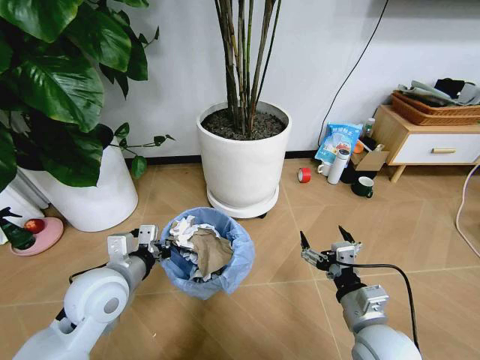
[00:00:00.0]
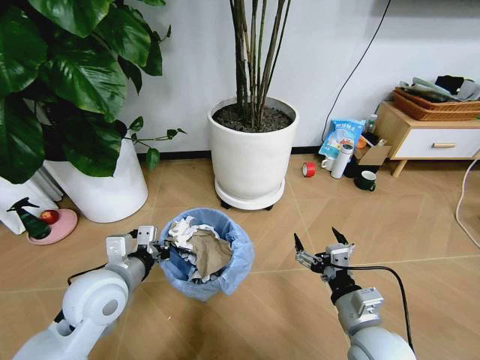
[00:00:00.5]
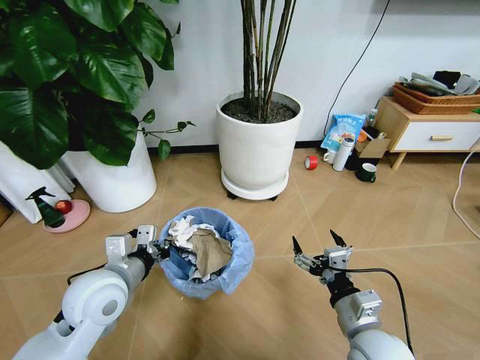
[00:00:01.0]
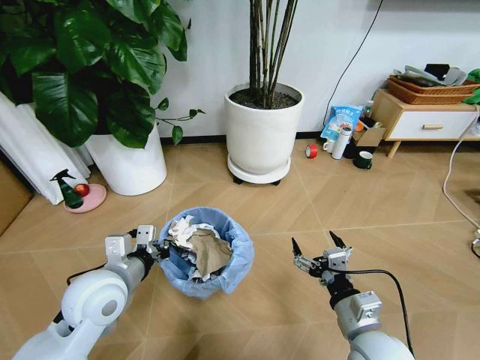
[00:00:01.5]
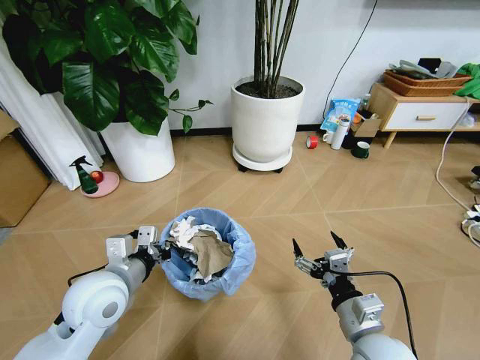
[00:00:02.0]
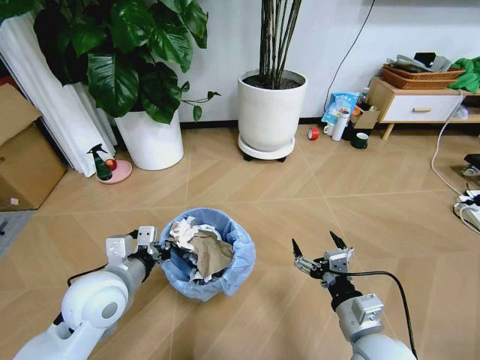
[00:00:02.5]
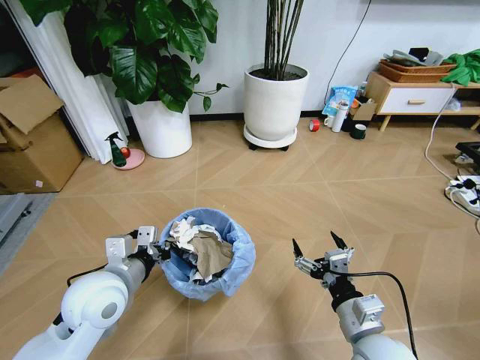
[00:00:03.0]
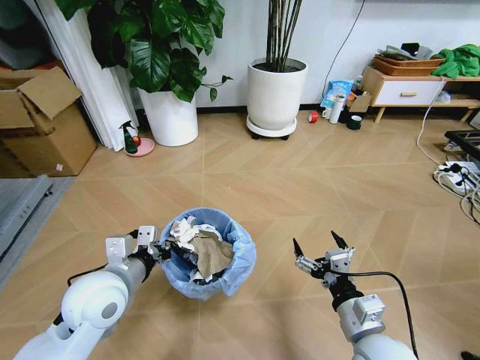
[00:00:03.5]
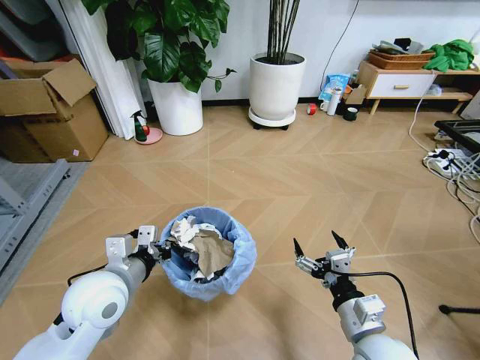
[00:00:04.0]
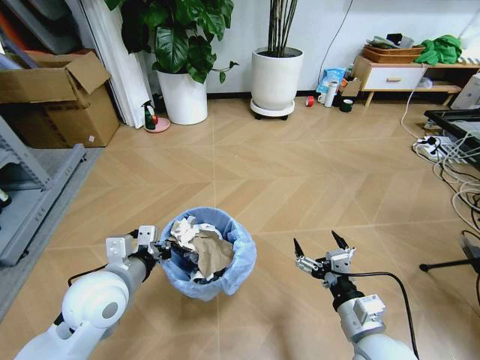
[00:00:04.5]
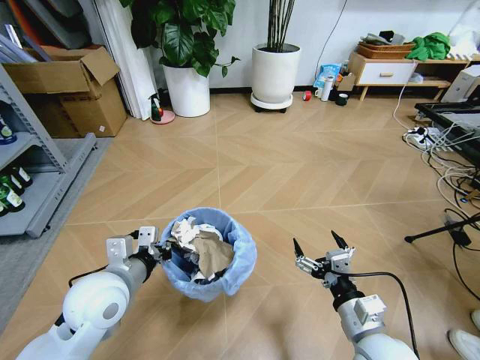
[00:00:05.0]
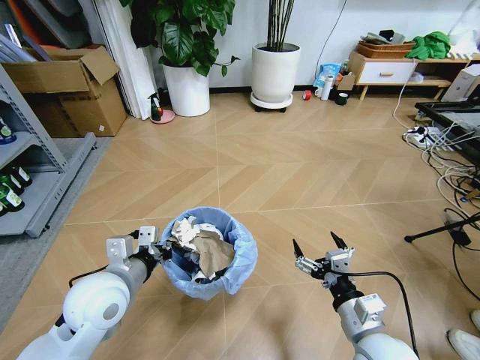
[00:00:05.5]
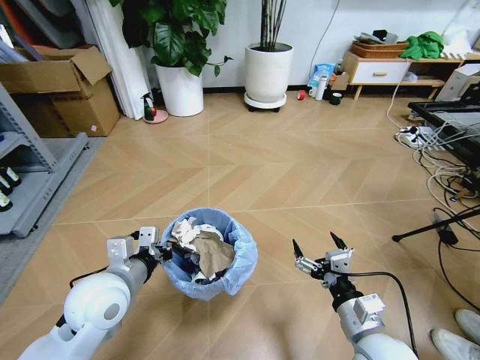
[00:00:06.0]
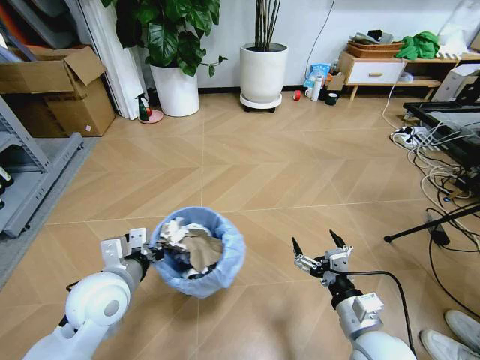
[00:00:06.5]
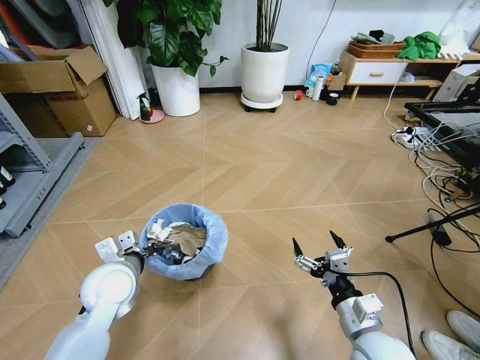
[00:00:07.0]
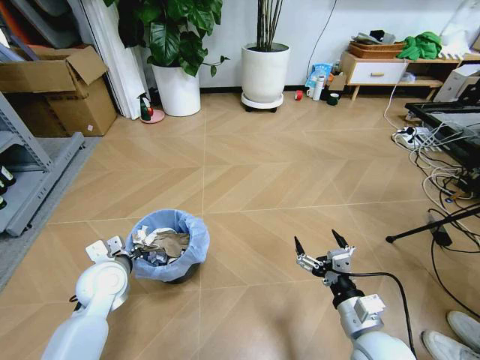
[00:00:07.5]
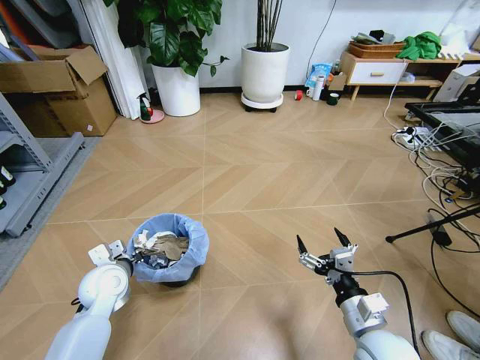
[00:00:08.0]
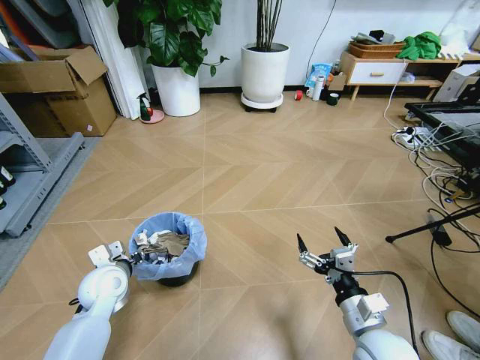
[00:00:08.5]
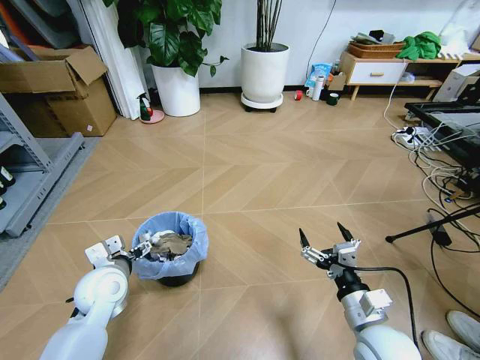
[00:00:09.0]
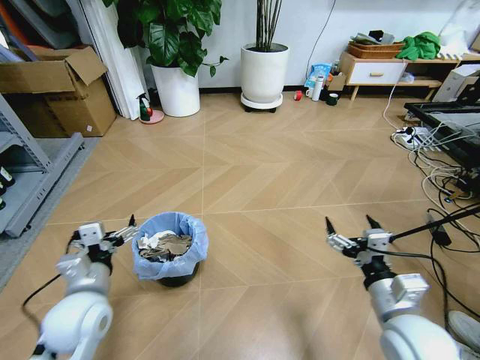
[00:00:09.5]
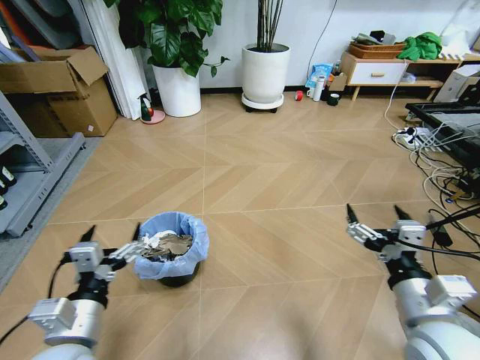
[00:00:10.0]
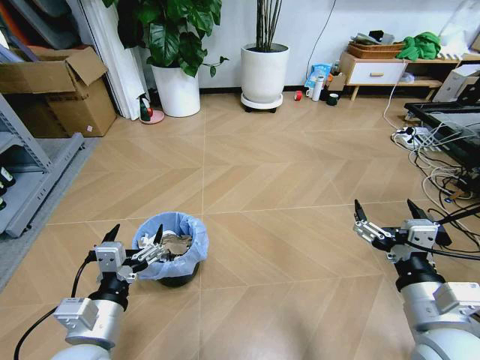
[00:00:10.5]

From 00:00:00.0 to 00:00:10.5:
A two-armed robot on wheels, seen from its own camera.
Task of the whole recording: Pick up the trash bin and place the garbage on the floor into it.
From 00:00:06.5 to 00:00:08.5: The left gripper moves downward, forward and to the left, some 15 cm, and opens up.
From 00:00:08.5 to 00:00:10.5: The left gripper is displaced backward and upward by some 20 cm, and opens up, while the right gripper travels upward by about 10 cm.
